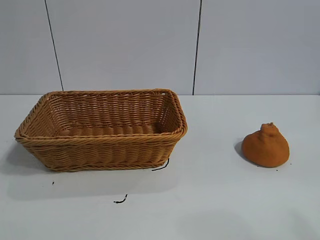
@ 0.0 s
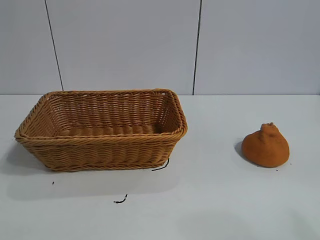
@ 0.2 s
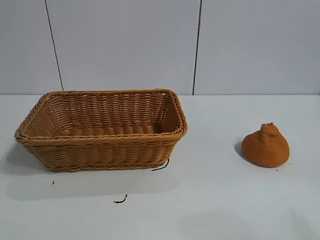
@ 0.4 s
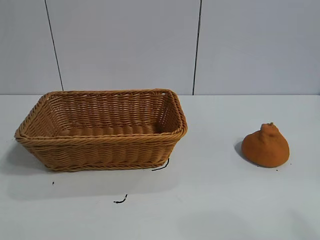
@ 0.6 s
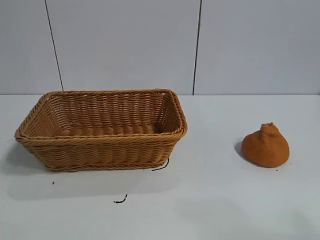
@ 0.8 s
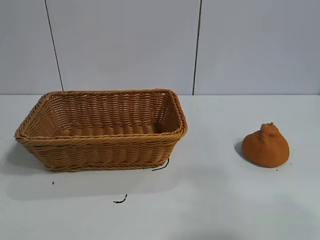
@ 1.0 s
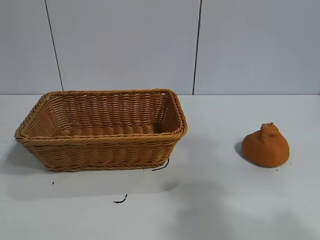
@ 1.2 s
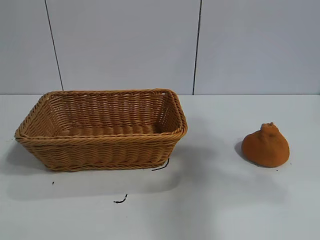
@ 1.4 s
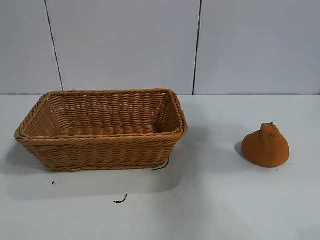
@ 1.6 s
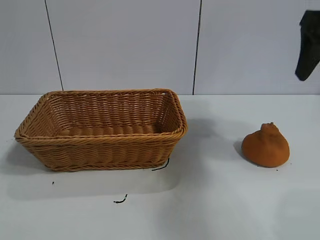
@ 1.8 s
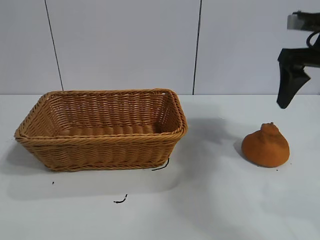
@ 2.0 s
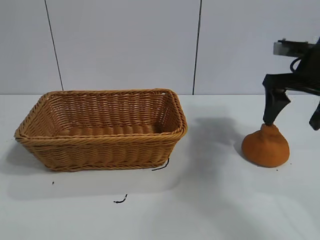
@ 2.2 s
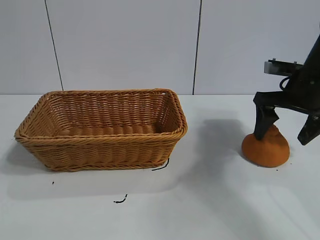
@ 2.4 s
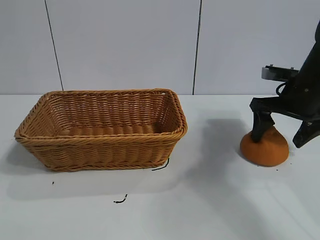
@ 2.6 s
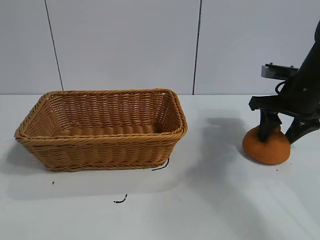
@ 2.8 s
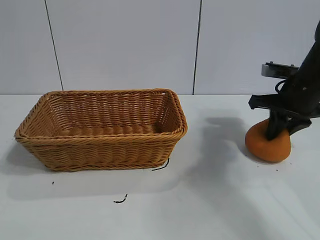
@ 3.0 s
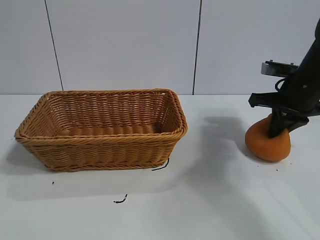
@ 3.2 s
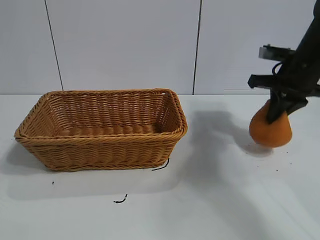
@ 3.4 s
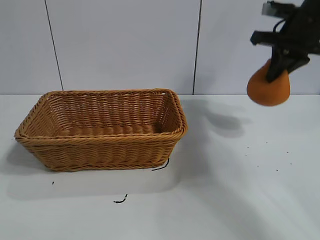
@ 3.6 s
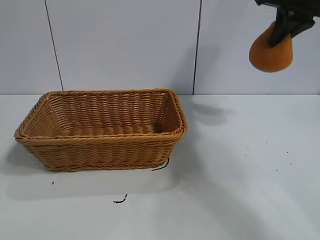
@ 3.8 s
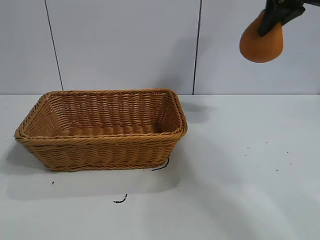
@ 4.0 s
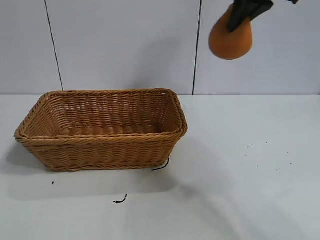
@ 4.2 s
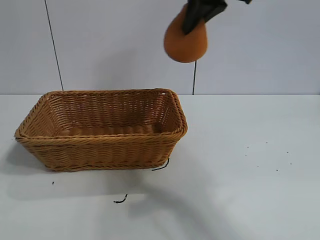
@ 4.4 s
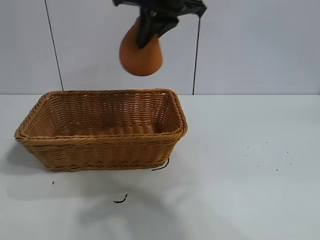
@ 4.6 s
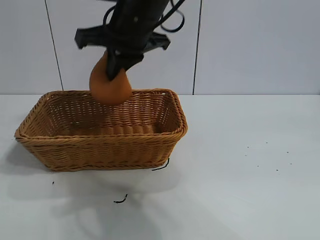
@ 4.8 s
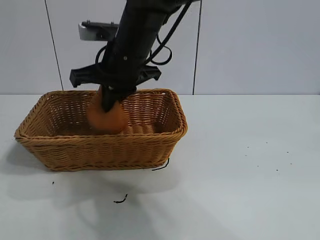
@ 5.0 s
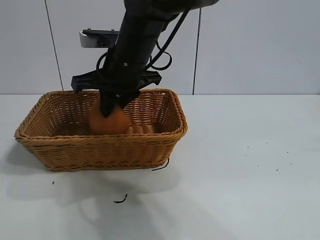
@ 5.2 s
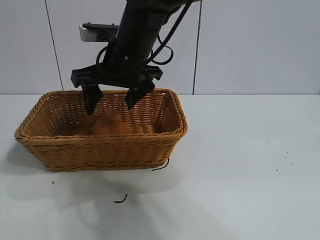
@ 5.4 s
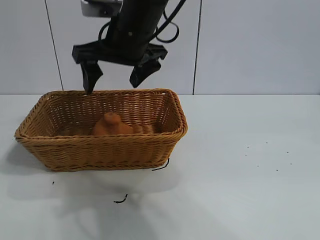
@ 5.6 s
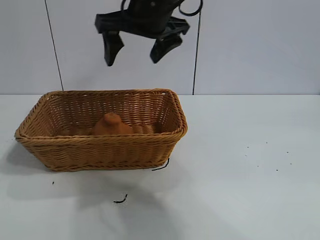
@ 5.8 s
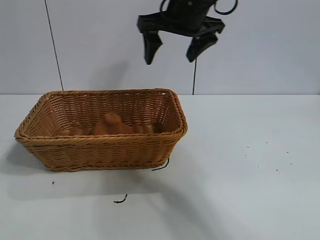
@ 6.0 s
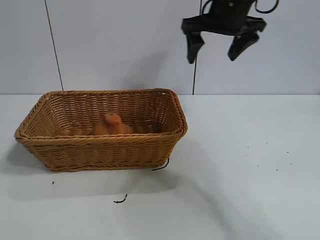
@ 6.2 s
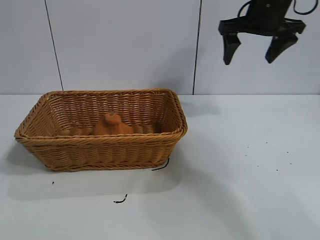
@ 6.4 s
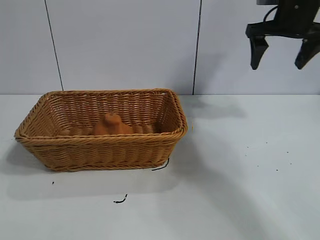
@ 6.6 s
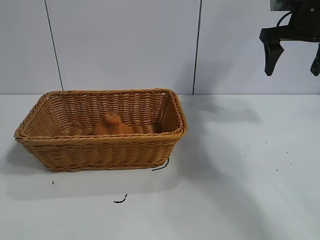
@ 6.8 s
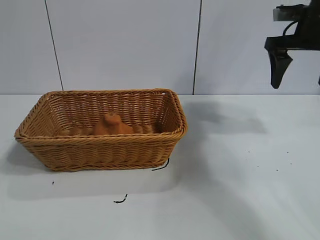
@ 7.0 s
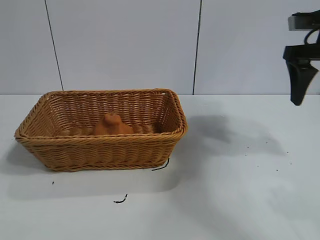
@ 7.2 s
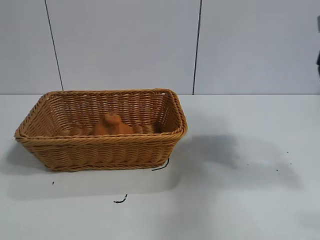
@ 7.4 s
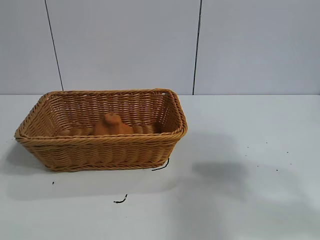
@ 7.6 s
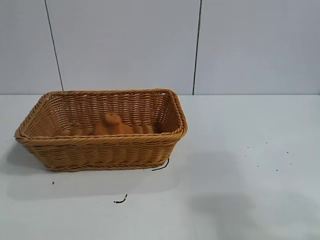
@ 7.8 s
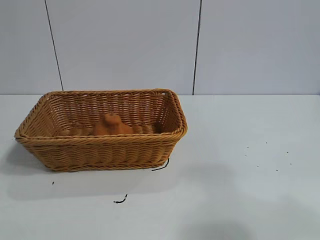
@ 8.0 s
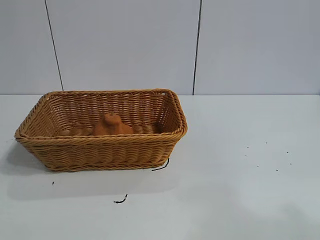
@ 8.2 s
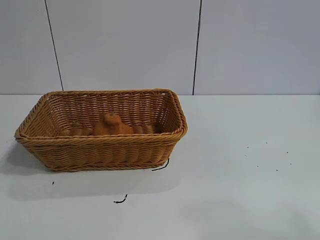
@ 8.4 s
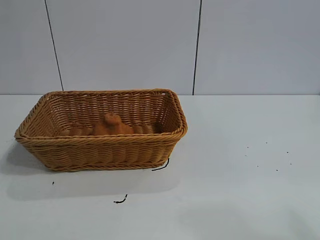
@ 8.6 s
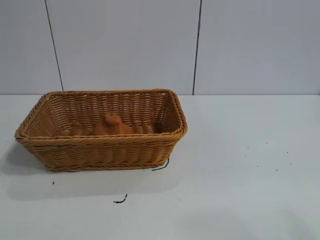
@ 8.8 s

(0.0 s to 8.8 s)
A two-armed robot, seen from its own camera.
Task of the whole recording: pick up the orange and put it into the basket.
Step, 0.8 s - 3.2 s: Grasp the orange with right gripper.
Step, 3.4 s - 5.2 s: Place the orange in the basket with right gripper.

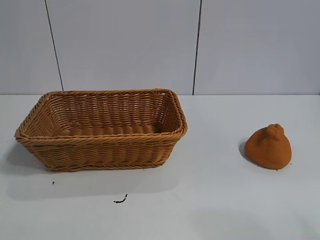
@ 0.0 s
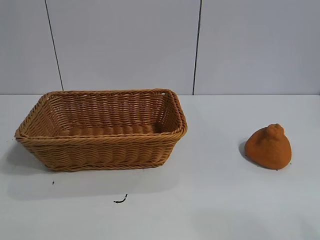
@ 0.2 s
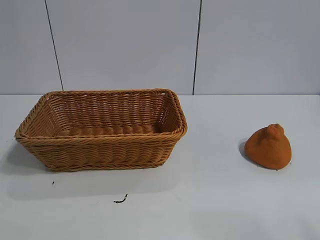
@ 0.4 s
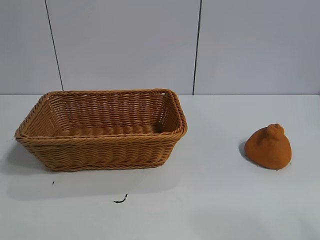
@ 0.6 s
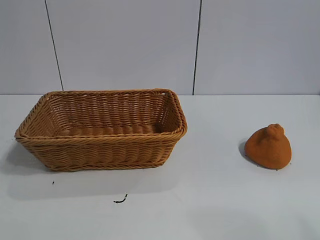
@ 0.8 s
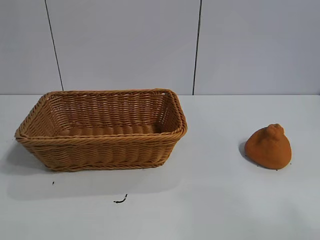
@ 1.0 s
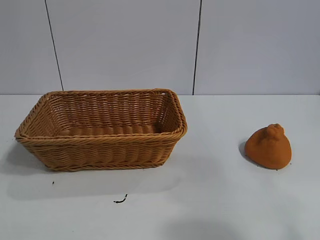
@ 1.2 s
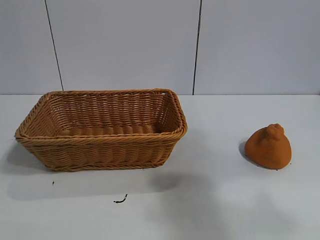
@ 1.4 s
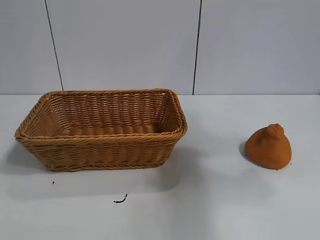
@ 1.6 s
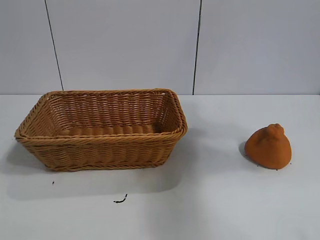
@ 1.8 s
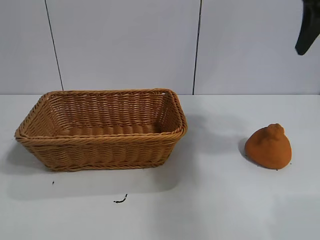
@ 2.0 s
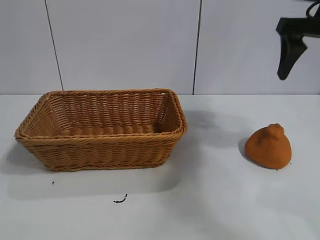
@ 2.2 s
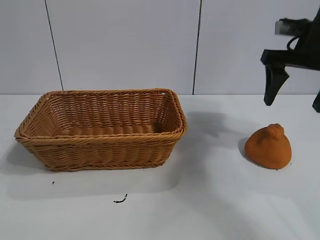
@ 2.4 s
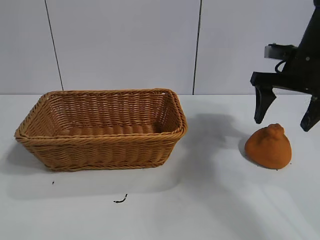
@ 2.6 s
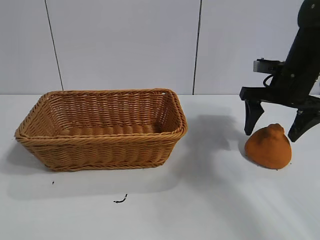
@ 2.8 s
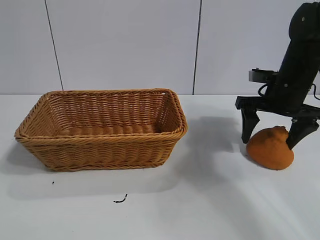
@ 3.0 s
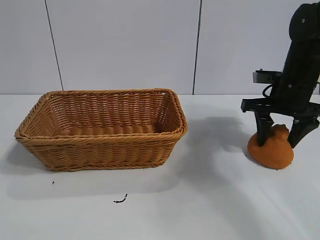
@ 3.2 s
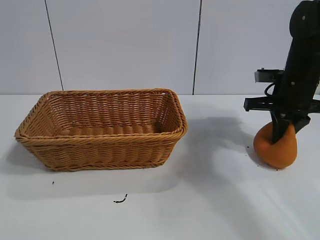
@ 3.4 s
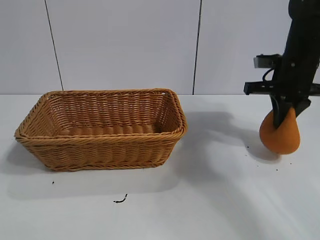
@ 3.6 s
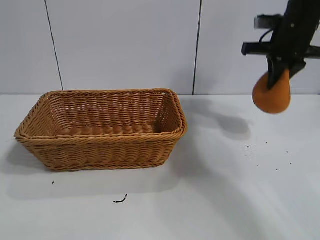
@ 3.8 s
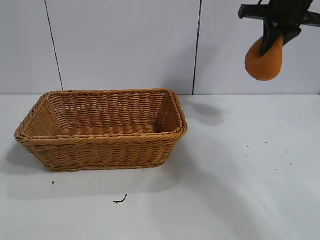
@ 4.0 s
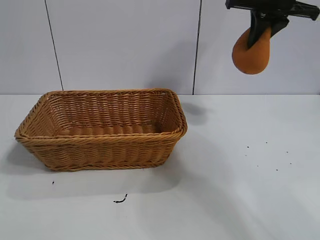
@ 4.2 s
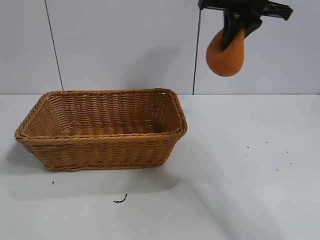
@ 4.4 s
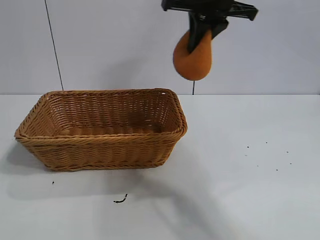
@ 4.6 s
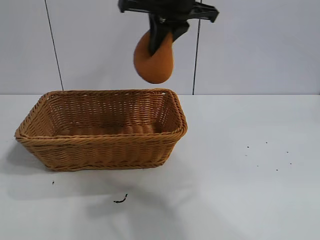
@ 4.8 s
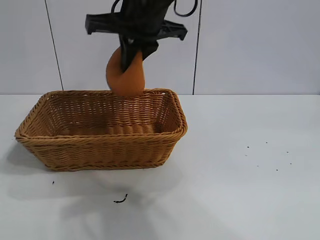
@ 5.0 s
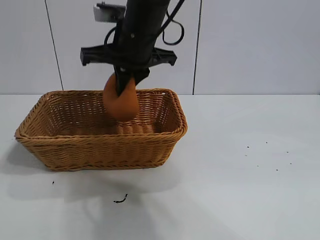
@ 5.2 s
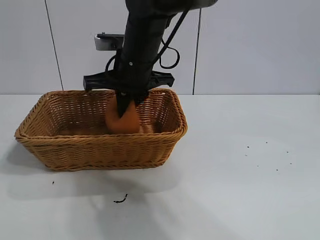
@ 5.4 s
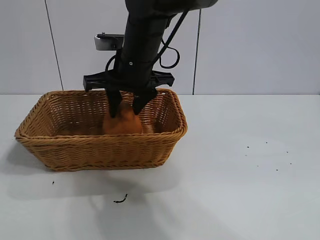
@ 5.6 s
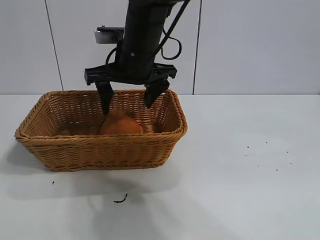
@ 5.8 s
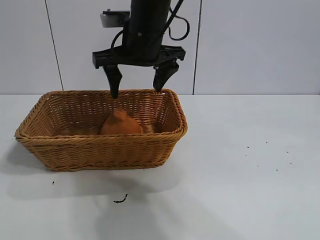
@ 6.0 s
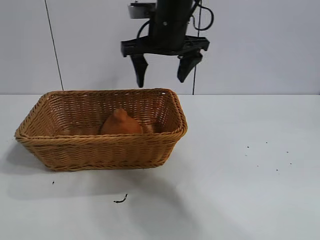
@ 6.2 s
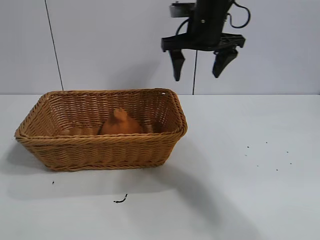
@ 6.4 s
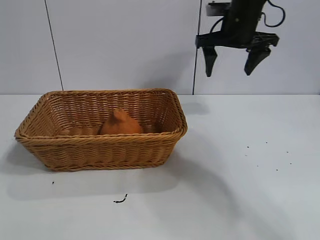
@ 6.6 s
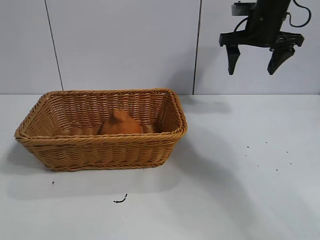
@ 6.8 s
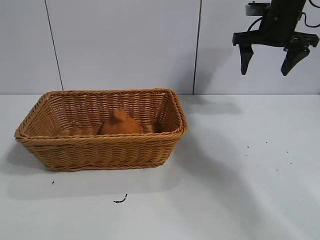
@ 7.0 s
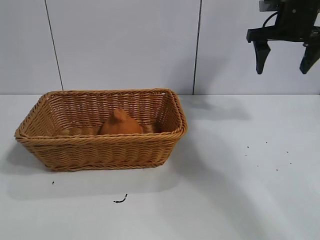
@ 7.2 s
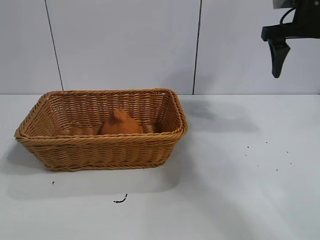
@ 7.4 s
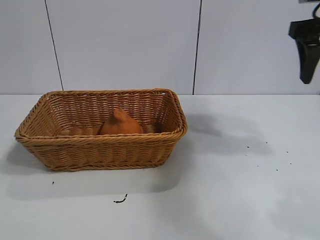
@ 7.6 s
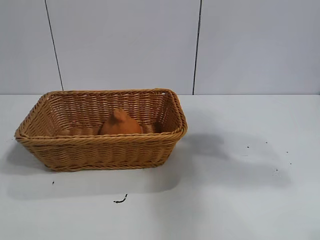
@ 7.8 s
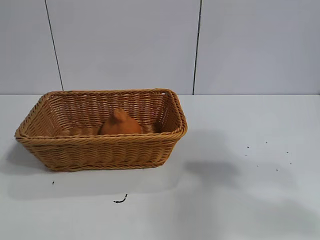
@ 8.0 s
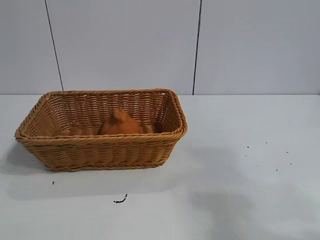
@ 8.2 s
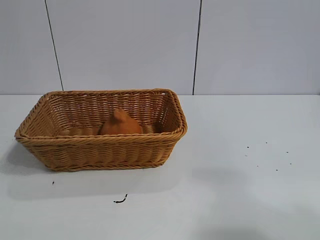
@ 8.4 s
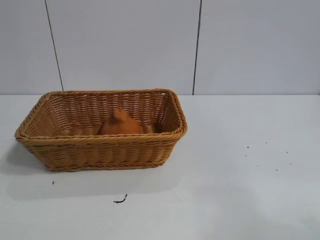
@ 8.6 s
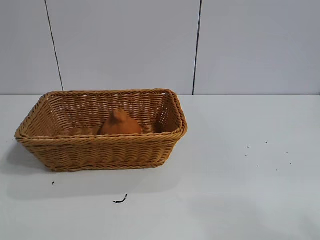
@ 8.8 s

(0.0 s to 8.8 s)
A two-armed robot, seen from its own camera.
Task of the whole recording: pick up the orange and put it into the basket.
Step, 0.8 s - 3.2 s: Grasp the orange with right gripper.
Step, 3.6 s - 5.8 s: Place the orange in the basket with right gripper.
